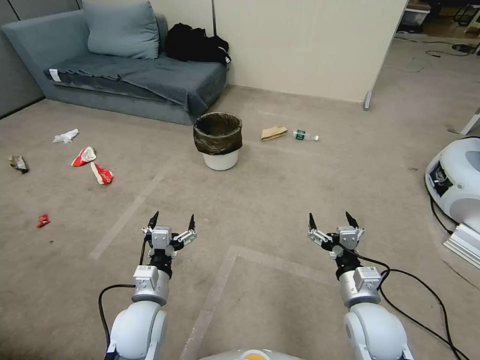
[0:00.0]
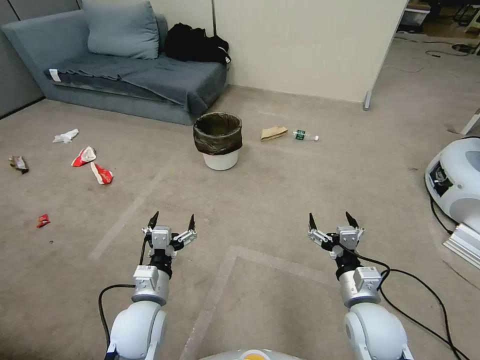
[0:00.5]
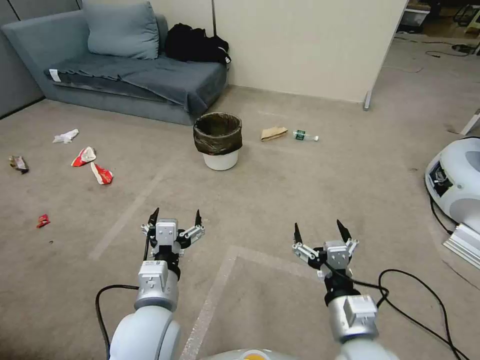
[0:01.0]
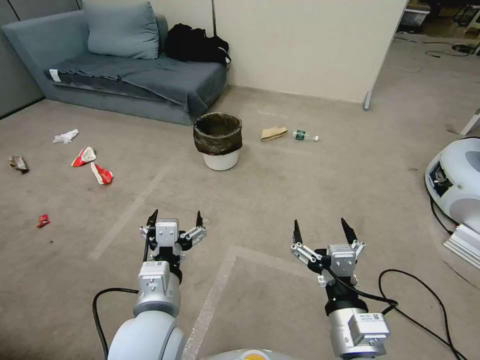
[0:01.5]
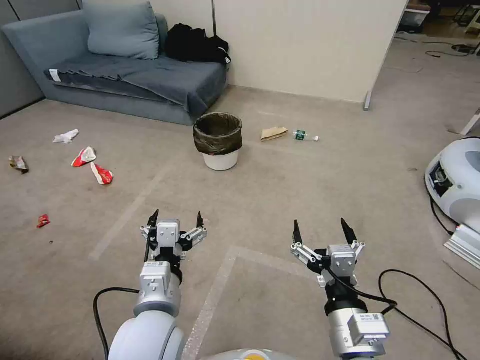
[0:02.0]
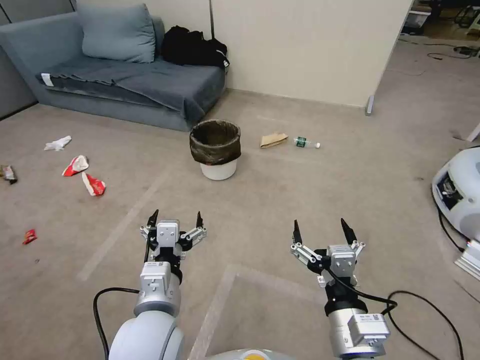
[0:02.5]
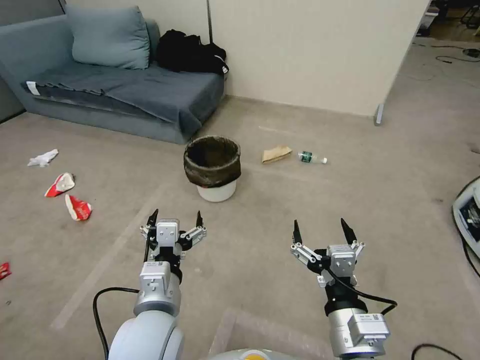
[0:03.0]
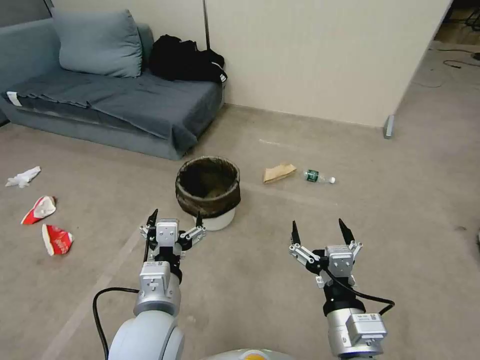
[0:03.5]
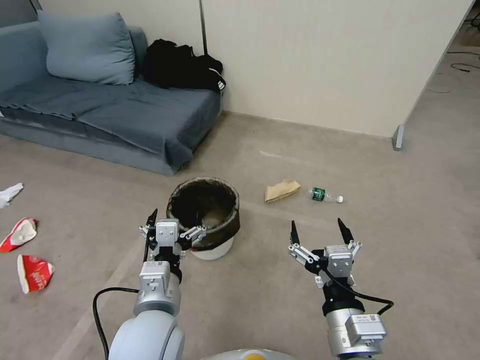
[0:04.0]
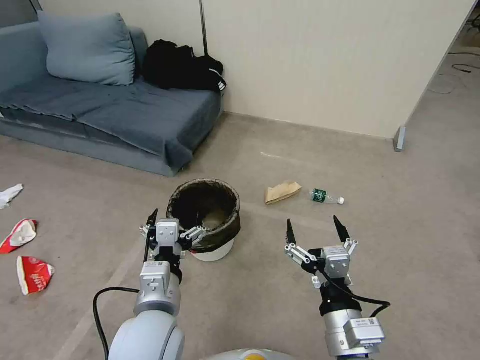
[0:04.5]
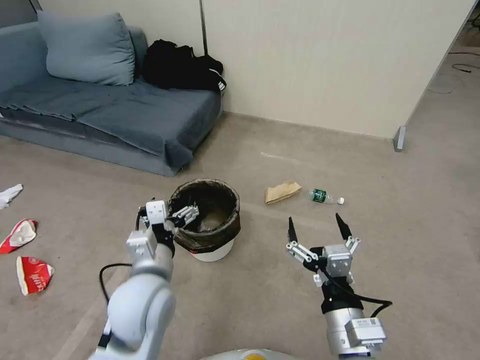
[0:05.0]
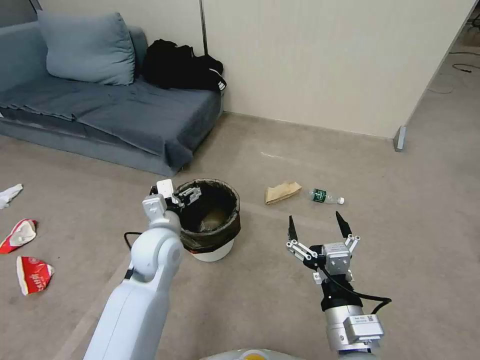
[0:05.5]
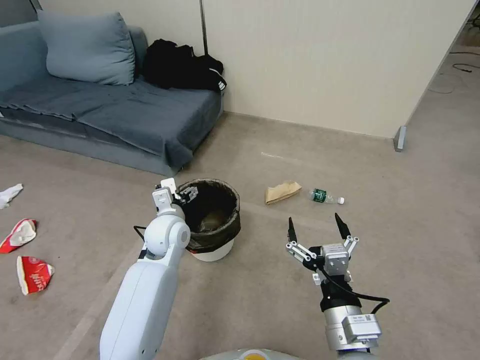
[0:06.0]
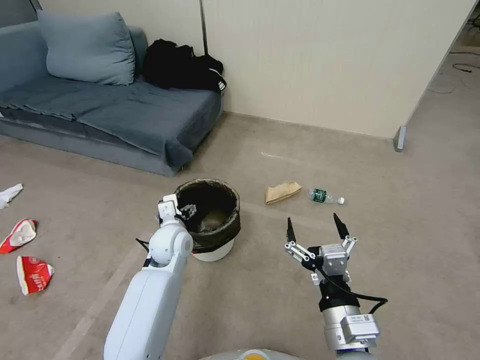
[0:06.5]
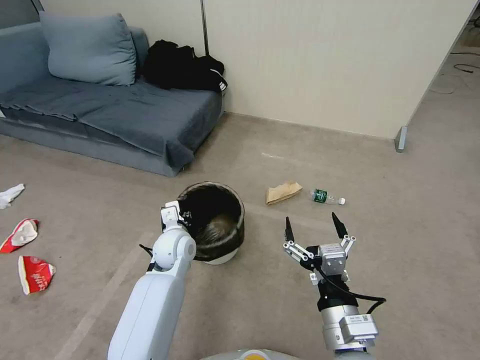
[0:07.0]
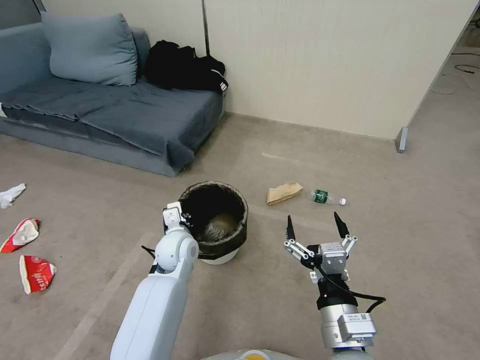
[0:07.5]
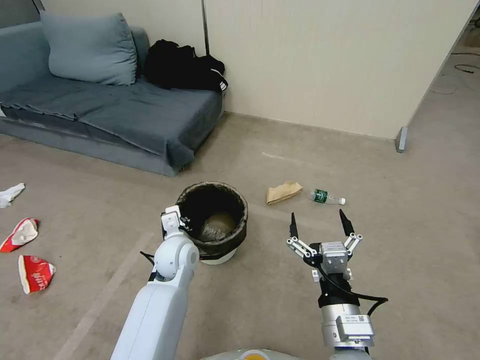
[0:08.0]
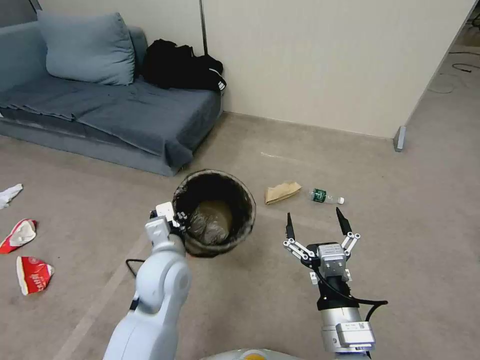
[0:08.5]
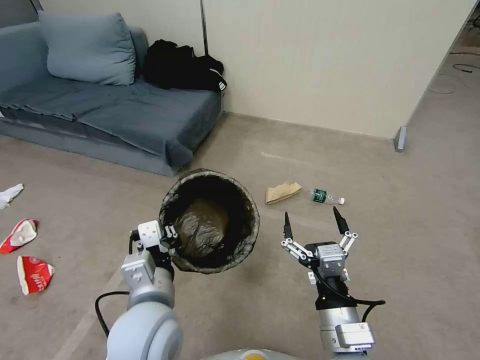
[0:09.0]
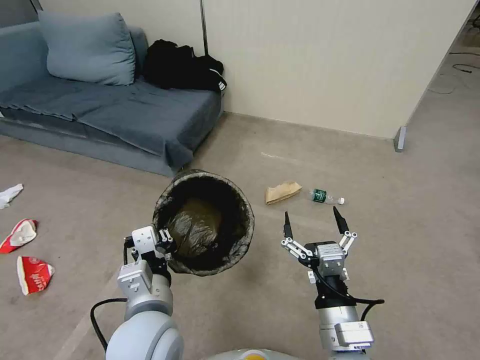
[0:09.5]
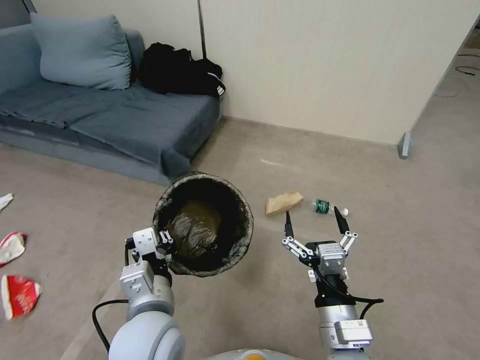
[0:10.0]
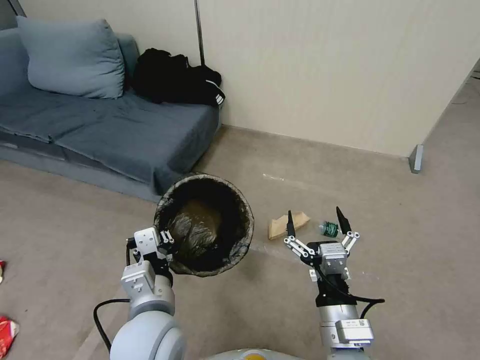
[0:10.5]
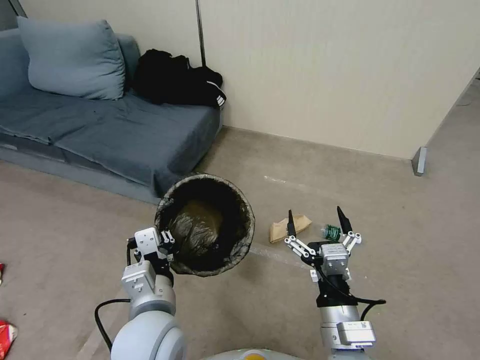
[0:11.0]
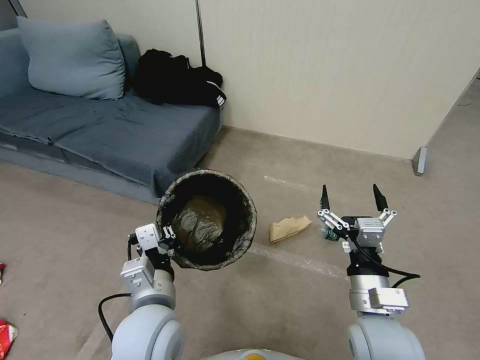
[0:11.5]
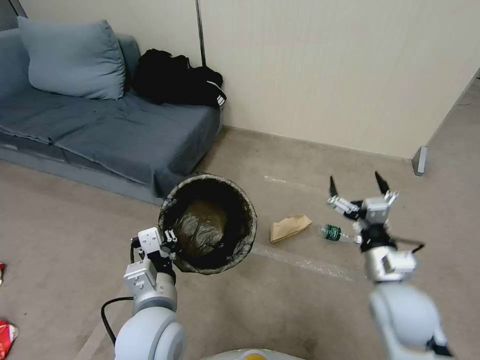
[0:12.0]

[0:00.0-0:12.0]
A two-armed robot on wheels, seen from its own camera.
Task of the whole recording: Pick up the trash bin, then pick up the garbage from the floor and place it into the trash bin.
0:04.0 to 0:06.0: The left gripper heads forward, covering approximately 20 cm.
0:06.0 to 0:08.0: The left gripper shifts by roughly 5 cm, and closes.
0:08.0 to 0:10.0: The left gripper shifts roughly 20 cm backward and upward.
0:10.0 to 0:12.0: The right gripper moves to the right and forward, some 15 cm.

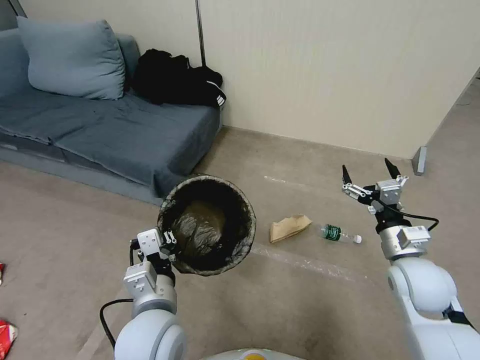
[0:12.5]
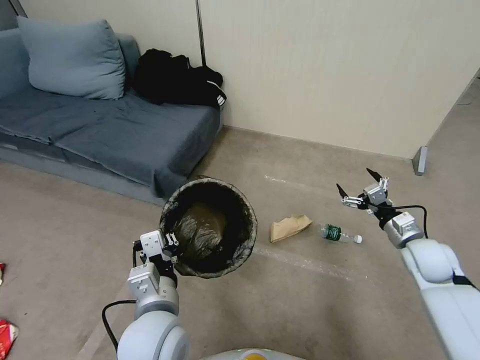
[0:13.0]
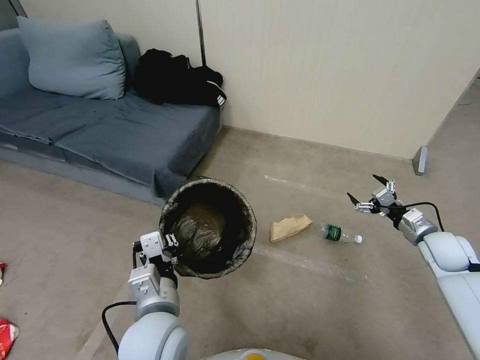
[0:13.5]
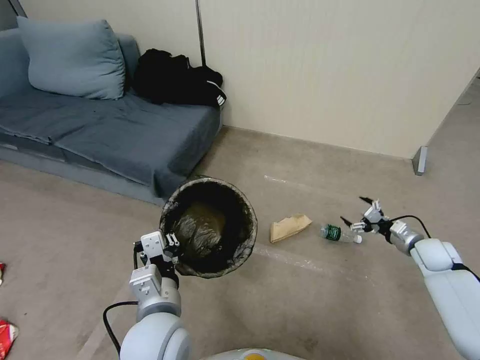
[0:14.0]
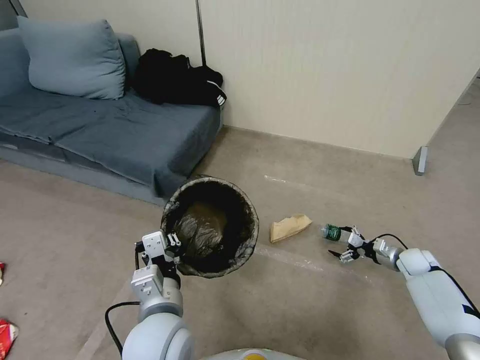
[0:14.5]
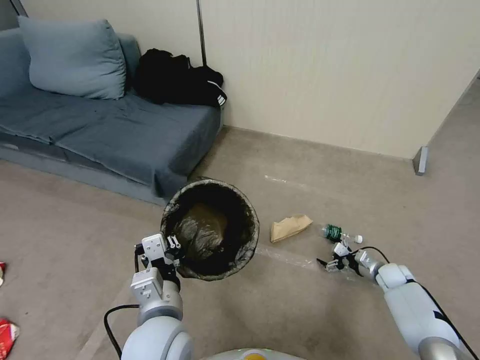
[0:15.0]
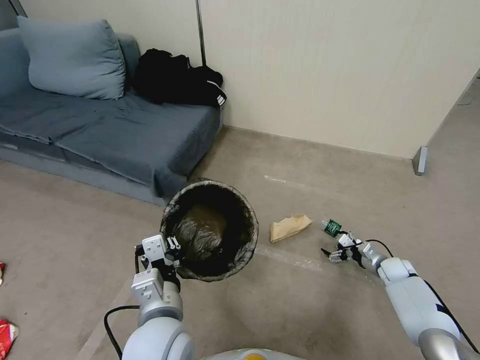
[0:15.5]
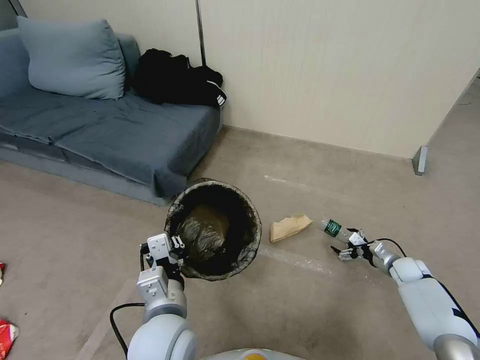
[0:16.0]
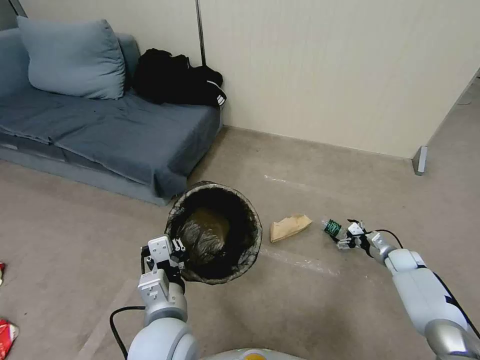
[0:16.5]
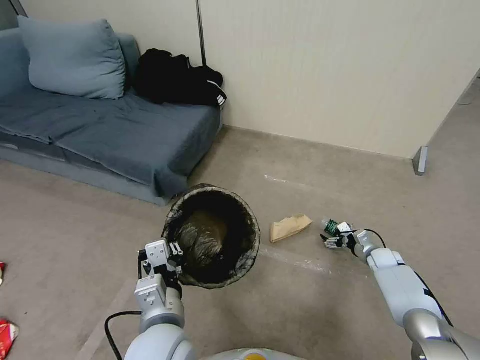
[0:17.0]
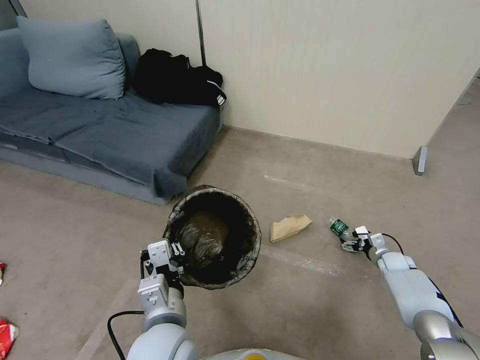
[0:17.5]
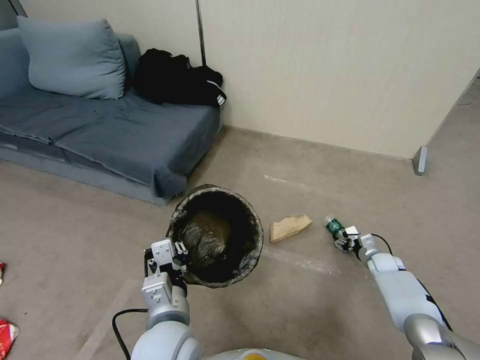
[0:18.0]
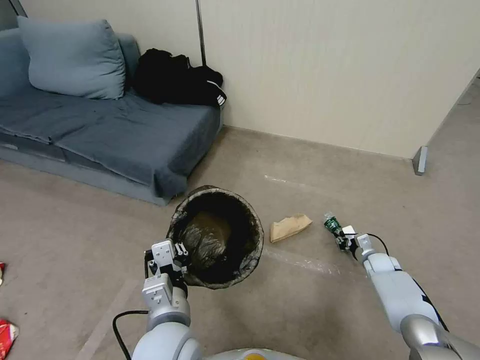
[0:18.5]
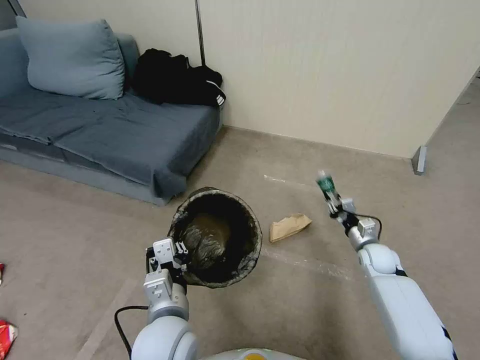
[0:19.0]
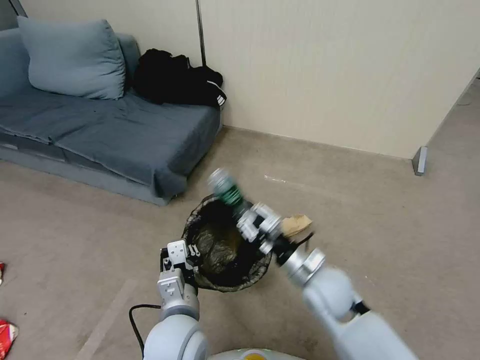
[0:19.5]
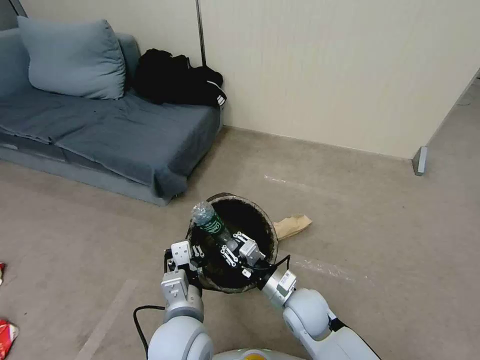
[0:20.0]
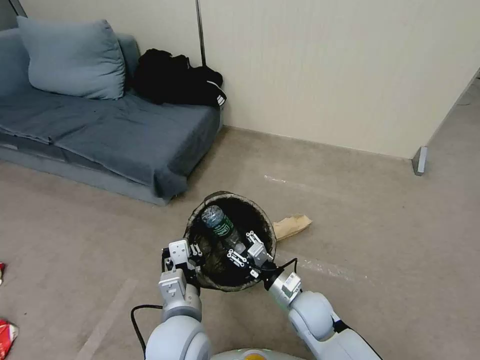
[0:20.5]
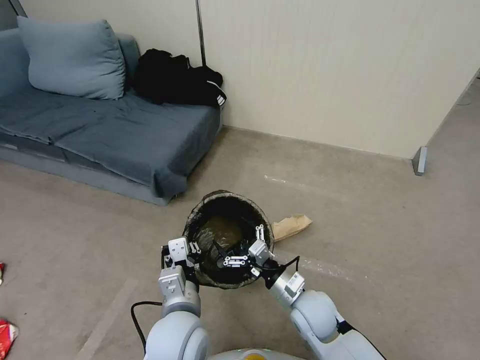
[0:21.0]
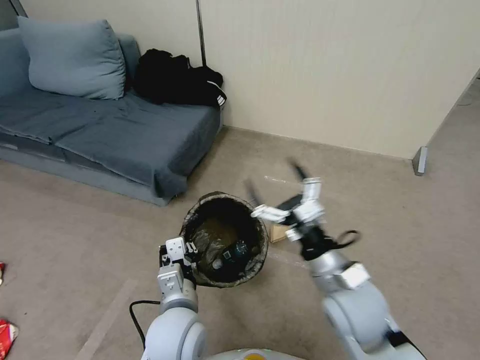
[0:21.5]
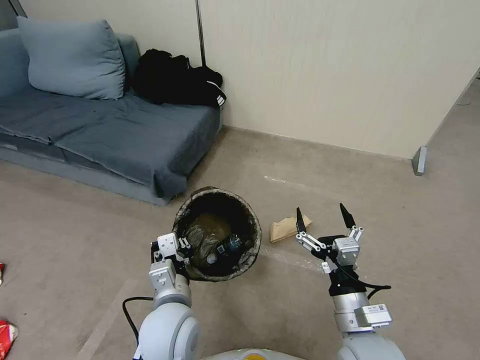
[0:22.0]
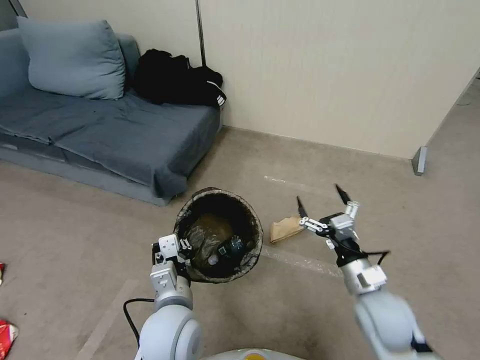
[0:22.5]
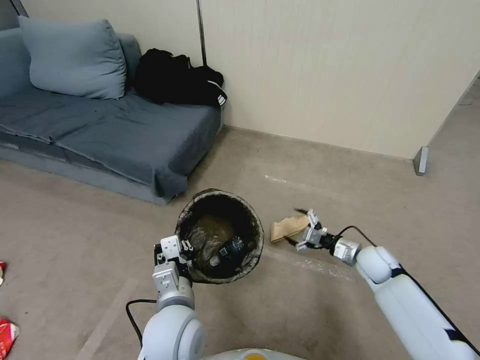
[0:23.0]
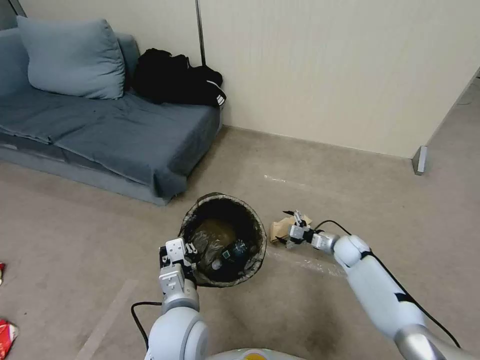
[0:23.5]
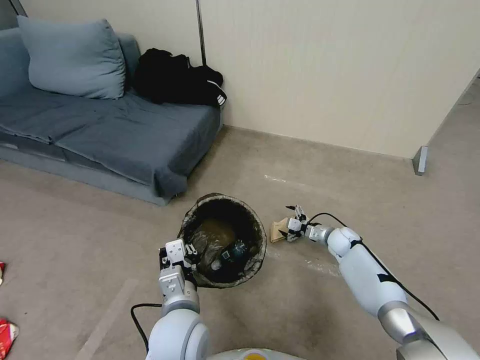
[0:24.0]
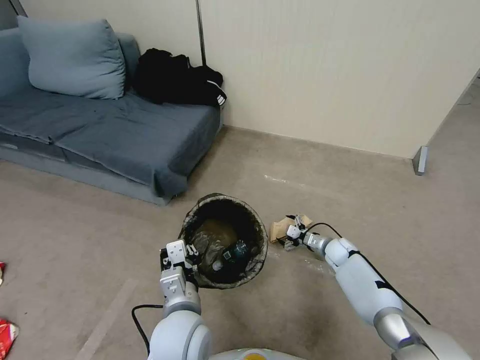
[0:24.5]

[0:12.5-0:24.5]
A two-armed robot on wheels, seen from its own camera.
Task of the whole recording: Pick up the trash bin, then pick up the garbage from the floor and place it into the trash bin.
0:12.5 to 0:14.5: The right gripper moves downward, to the right and forward, about 30 cm.
0:16.5 to 0:18.5: The right gripper goes some 5 cm to the left, and closes its fingers.
0:18.5 to 0:20.5: The right gripper travels to the left and backward by roughly 35 cm.
0:20.5 to 0:22.5: The right gripper heads to the right and upward, covering some 15 cm, and opens up.
0:22.5 to 0:24.5: The right gripper heads forward and downward, covering roughly 25 cm.

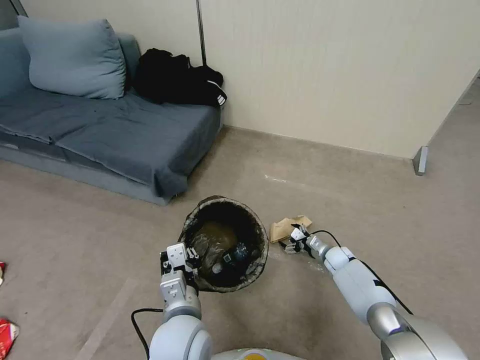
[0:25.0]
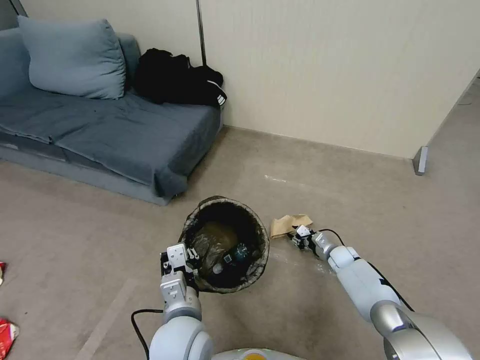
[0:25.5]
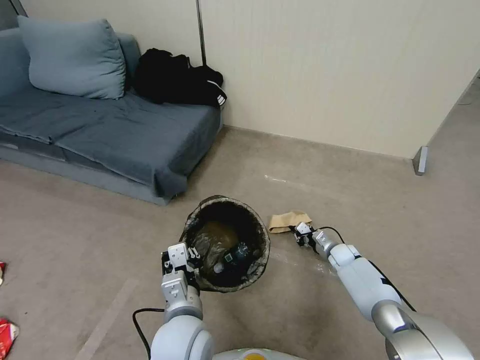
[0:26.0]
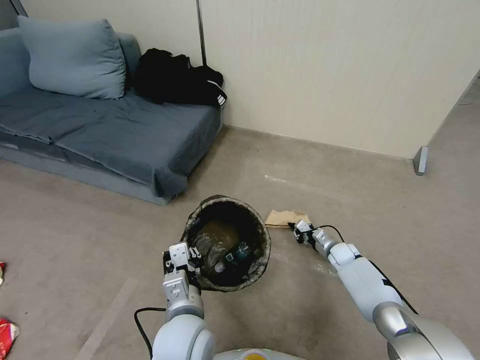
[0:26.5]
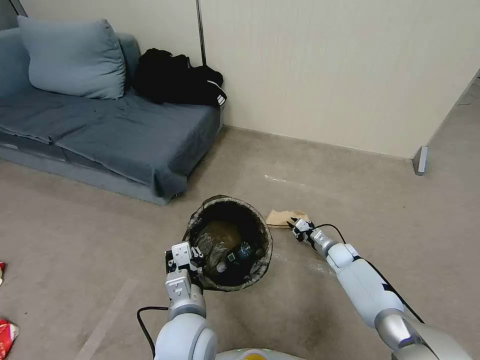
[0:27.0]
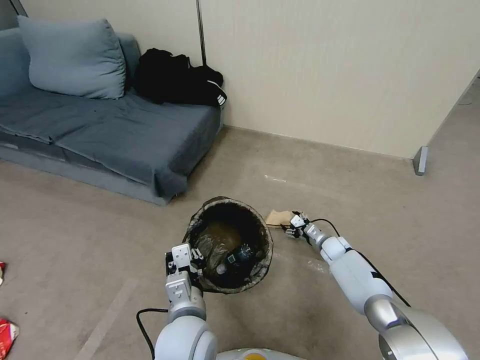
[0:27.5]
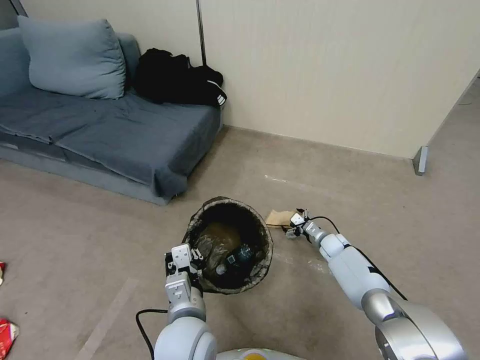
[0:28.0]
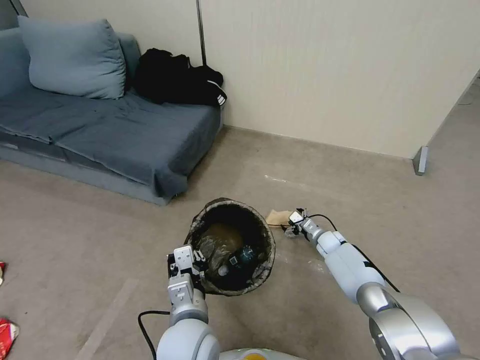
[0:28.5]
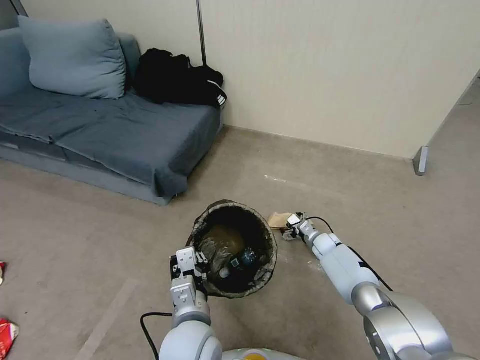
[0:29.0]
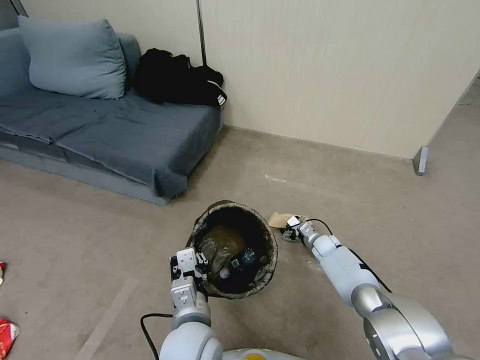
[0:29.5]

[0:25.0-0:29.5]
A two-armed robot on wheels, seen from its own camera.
Task of the whole recording: Pick up the trash bin, then pick up the garbage from the floor and place it into the trash bin.
0:25.0 to 0:27.0: The right gripper closes its fingers.
0:27.0 to 0:29.5: The right gripper ends up approximately 5 cm from where it was, and opens its fingers.
